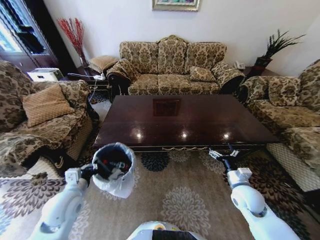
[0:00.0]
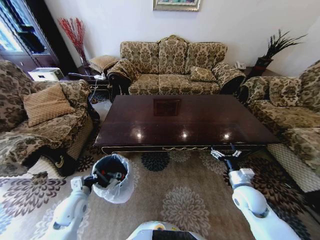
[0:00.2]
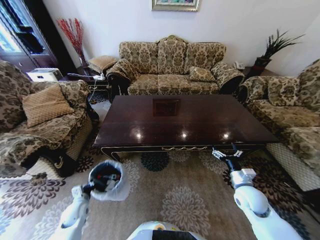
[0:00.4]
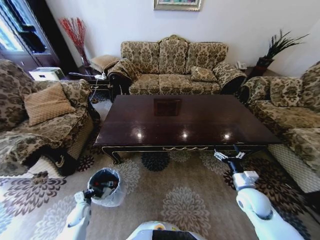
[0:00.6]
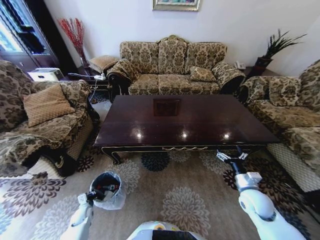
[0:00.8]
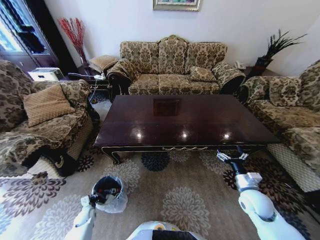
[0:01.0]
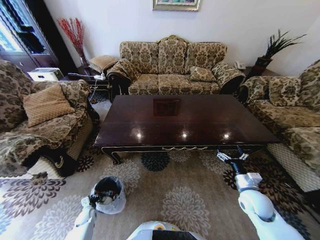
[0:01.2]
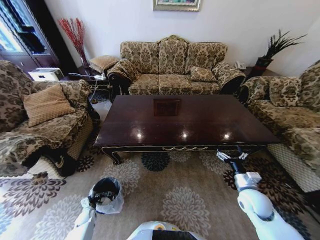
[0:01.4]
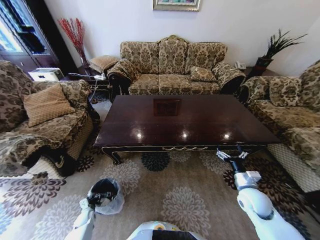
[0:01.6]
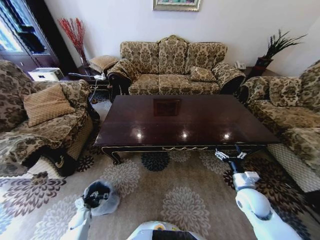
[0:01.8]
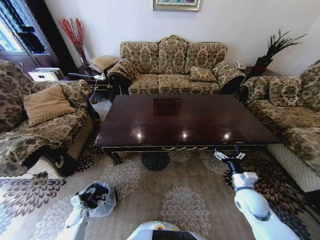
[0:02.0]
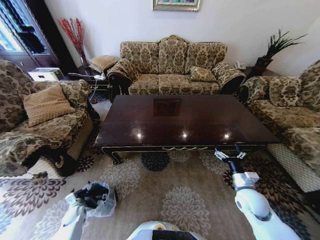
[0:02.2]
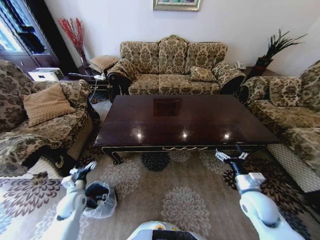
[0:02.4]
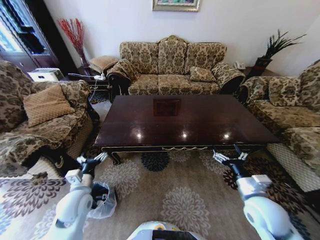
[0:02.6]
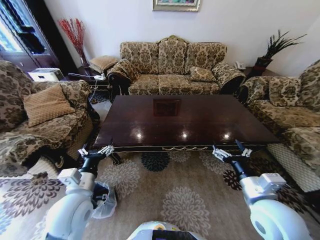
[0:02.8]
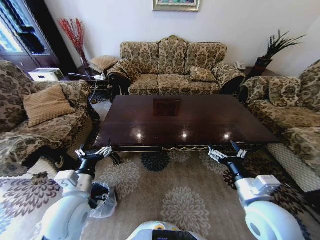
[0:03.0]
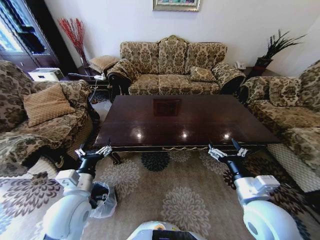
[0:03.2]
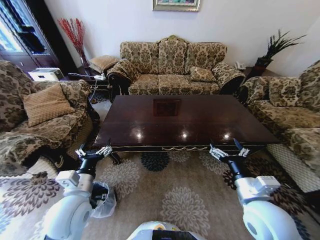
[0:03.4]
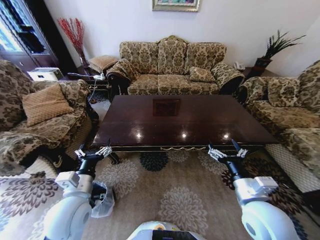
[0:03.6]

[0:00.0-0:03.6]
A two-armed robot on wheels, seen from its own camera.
Task of the whole recording: Move to the front of the table and place the trash on the table into the trash bin.
0:00.0 to 0:01.8: The left gripper shifts some 35 cm downward, and opens up.
0:01.8 to 0:03.6: The left gripper is displaced upward and to the right by about 40 cm. Meanwhile the right gripper travels upward, to the left and backward by about 20 cm.

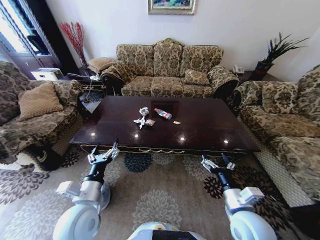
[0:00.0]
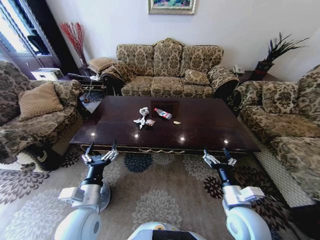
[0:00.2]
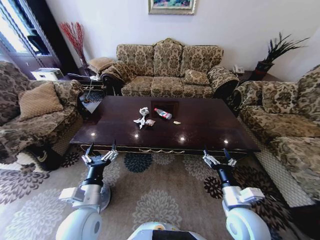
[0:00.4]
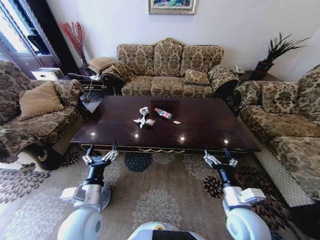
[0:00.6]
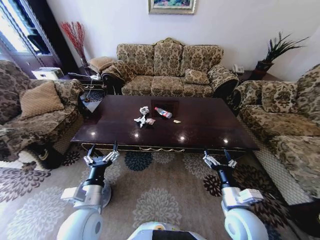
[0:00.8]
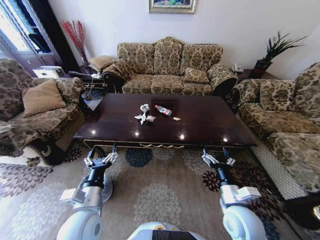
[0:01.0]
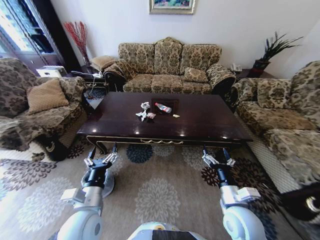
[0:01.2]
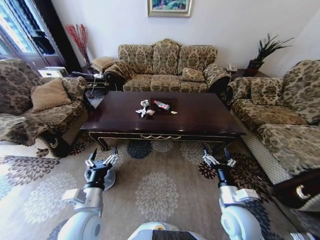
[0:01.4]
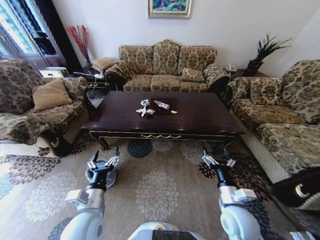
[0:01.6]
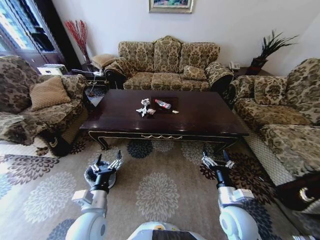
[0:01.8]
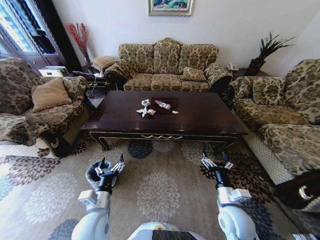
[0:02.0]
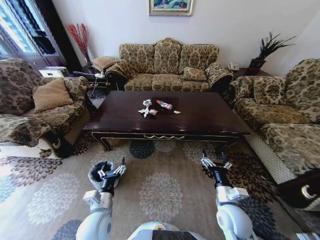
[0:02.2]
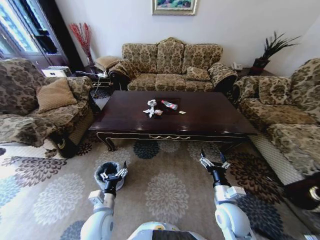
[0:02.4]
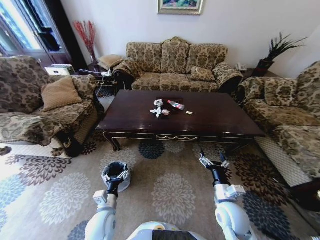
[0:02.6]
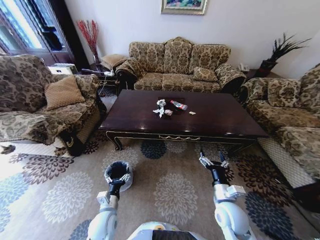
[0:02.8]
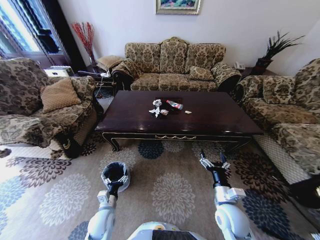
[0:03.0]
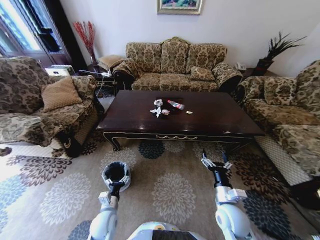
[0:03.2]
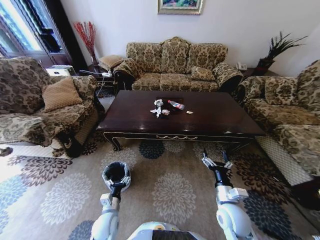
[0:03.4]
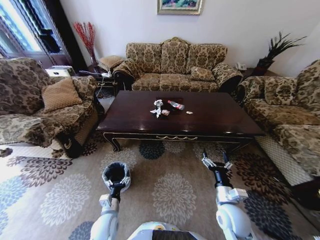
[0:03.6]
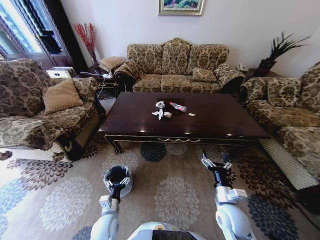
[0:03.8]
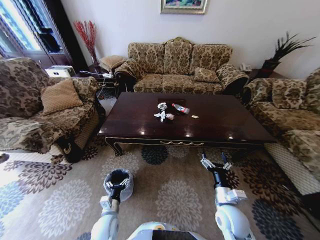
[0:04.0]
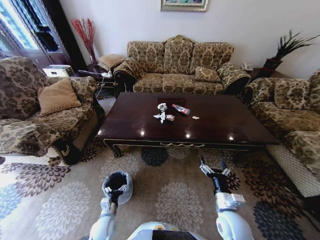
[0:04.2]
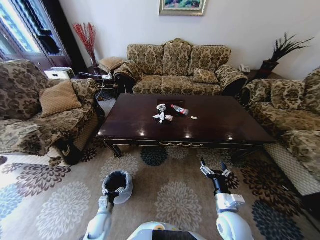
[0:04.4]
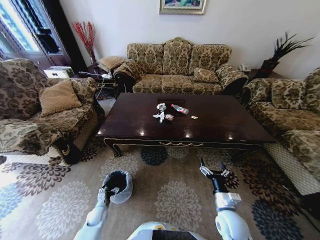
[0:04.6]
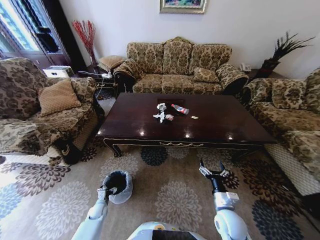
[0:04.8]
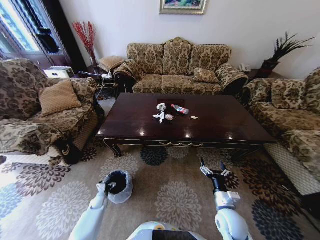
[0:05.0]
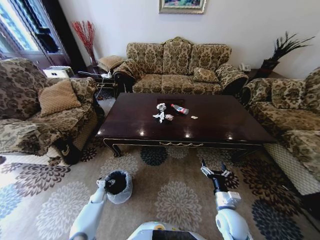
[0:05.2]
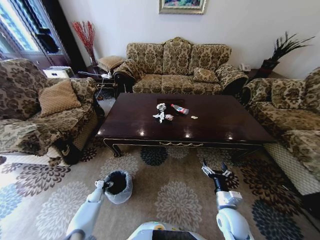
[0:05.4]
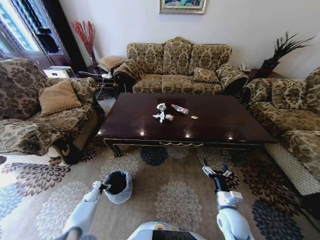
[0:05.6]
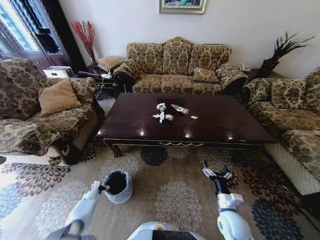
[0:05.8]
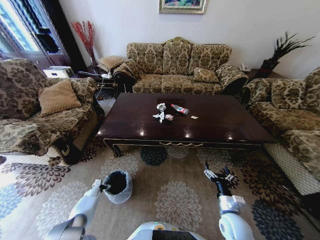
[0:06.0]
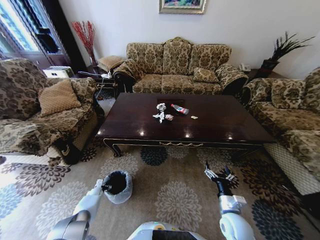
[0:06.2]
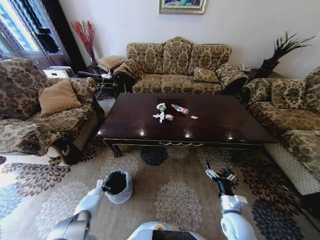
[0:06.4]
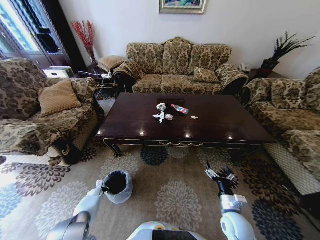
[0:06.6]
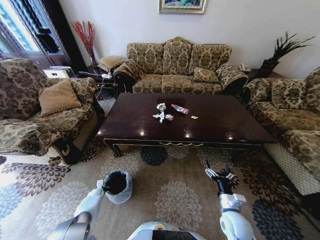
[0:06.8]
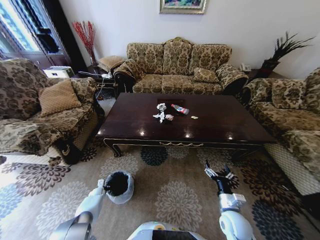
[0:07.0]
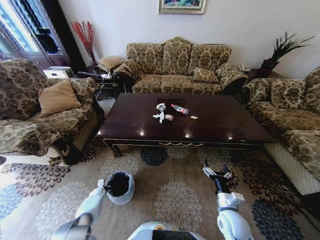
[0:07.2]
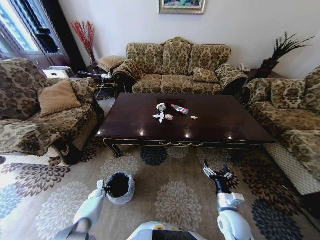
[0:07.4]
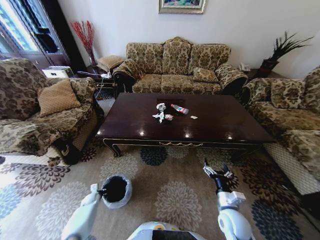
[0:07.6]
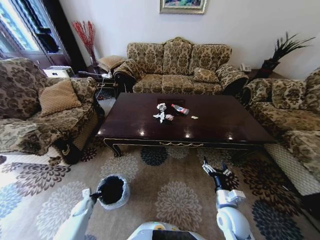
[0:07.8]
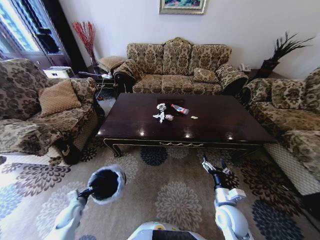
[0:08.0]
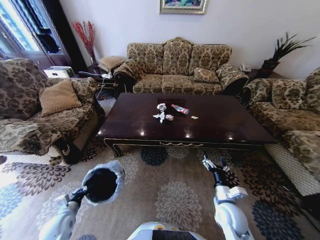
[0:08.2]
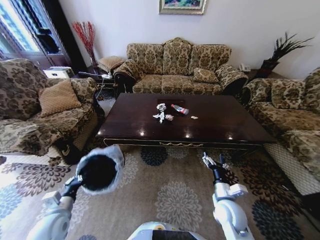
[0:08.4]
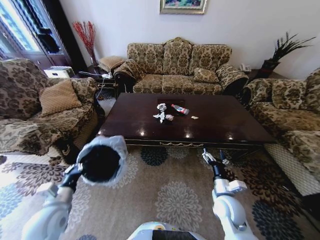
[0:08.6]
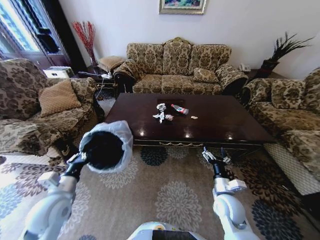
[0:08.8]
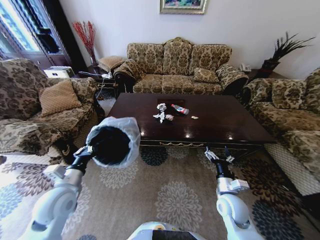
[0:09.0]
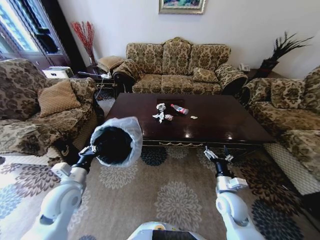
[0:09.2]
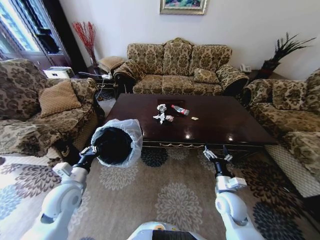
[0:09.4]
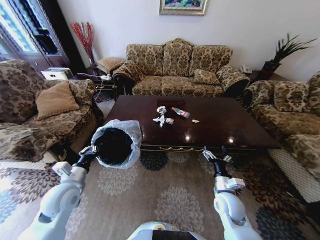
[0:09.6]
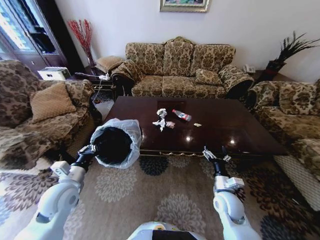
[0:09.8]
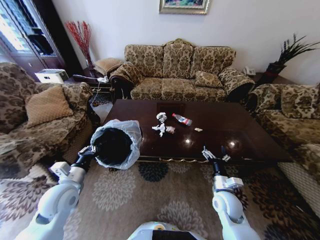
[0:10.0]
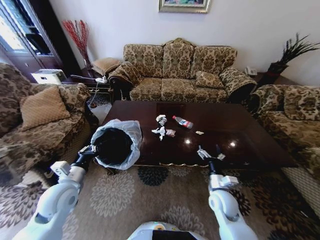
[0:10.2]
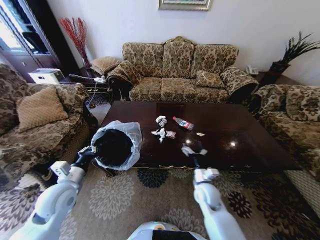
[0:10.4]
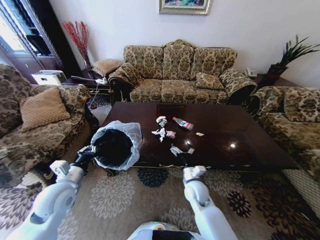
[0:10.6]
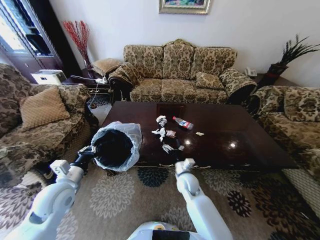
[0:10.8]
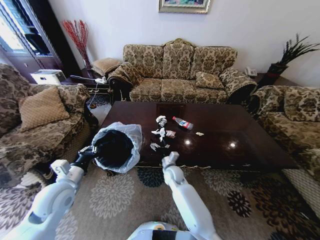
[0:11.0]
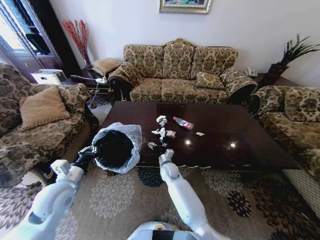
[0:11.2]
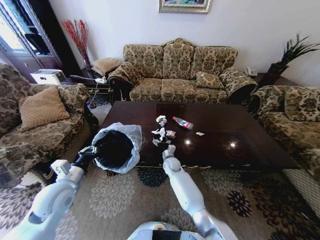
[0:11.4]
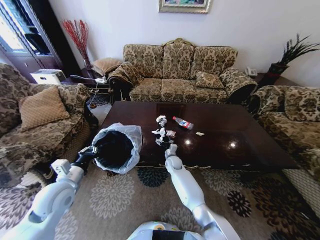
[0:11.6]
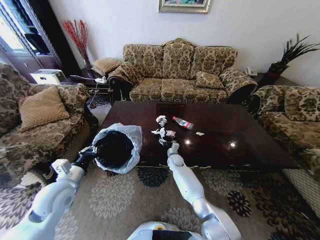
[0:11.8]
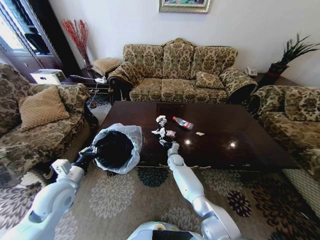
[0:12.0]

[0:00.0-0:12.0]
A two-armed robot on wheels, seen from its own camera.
Task of the whole recording: Move to the front of the table and place the trash on the table into the trash bin.
0:01.6 to 0:03.0: The left gripper heads downward, covering some 15 cm.
0:03.0 to 0:04.4: The left gripper moves downward and to the left, roughly 10 cm.
0:04.4 to 0:06.0: The left gripper shifts some 25 cm to the left, forward and downward.
0:06.0 to 0:07.6: The left gripper closes.
0:07.6 to 0:09.0: The right gripper ends up about 5 cm from where it was; the left gripper is displaced upward by about 40 cm.
0:09.0 to 0:10.4: The right gripper heads to the left, covering some 5 cm.
0:10.4 to 0:12.0: The right gripper is displaced forward, to the left and downward by approximately 25 cm.

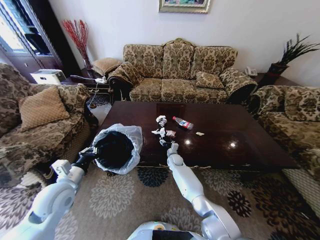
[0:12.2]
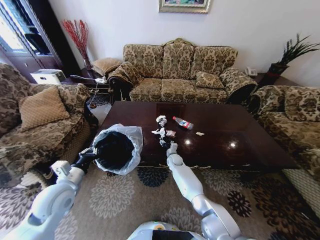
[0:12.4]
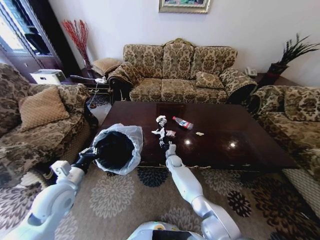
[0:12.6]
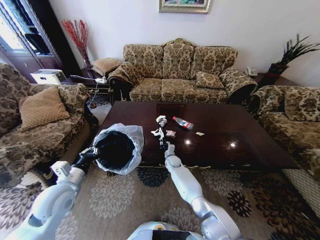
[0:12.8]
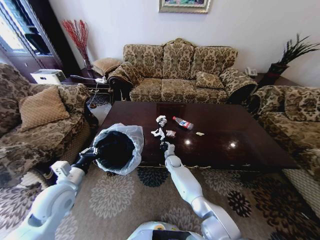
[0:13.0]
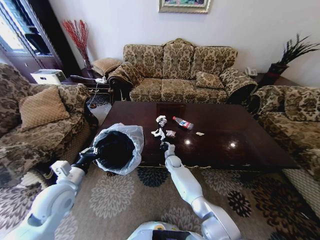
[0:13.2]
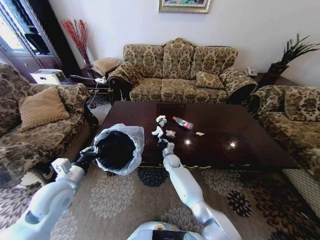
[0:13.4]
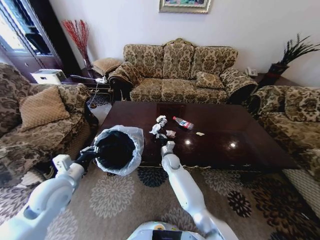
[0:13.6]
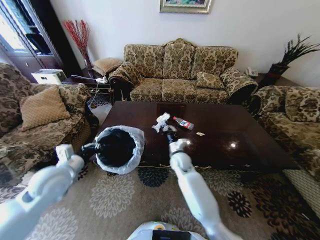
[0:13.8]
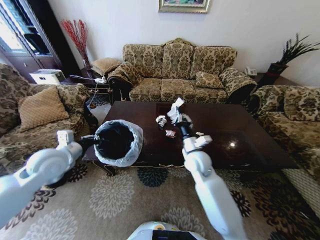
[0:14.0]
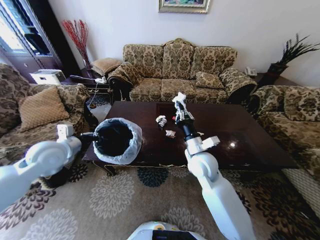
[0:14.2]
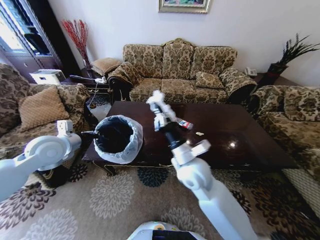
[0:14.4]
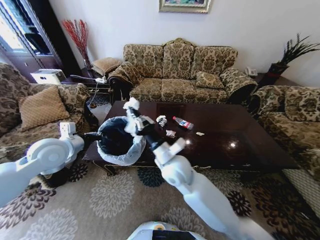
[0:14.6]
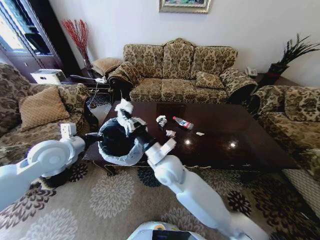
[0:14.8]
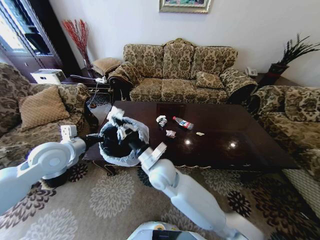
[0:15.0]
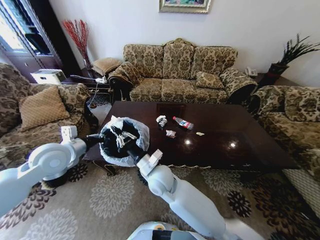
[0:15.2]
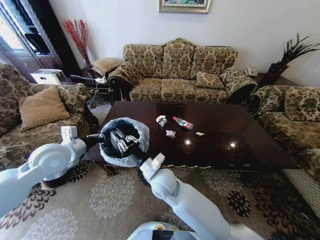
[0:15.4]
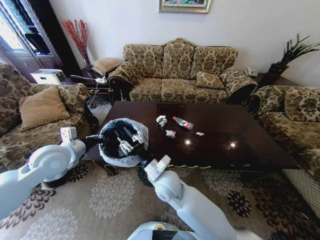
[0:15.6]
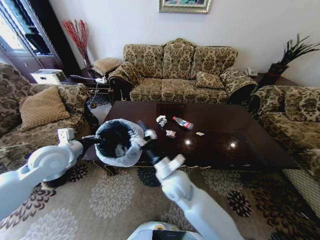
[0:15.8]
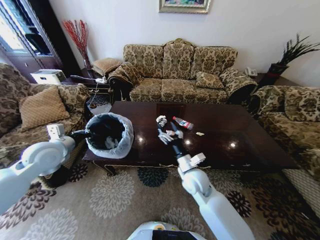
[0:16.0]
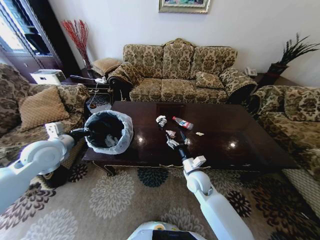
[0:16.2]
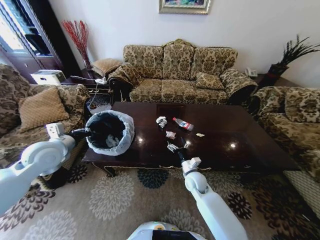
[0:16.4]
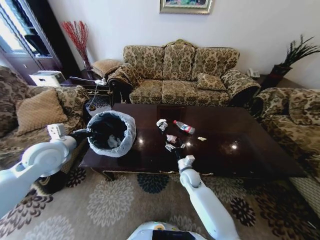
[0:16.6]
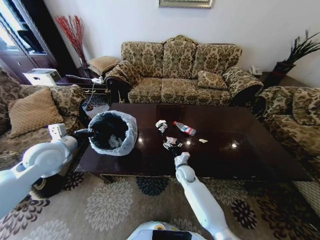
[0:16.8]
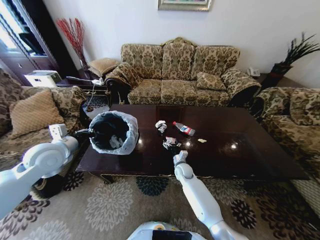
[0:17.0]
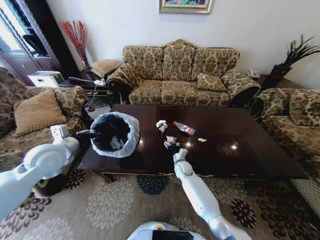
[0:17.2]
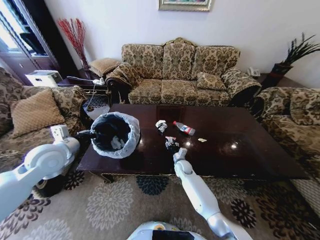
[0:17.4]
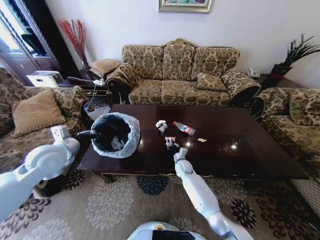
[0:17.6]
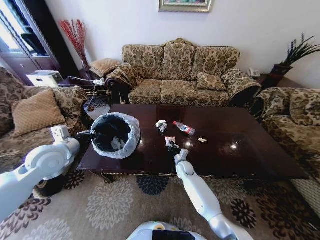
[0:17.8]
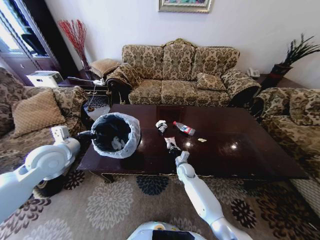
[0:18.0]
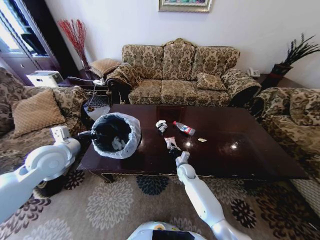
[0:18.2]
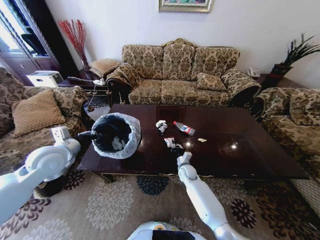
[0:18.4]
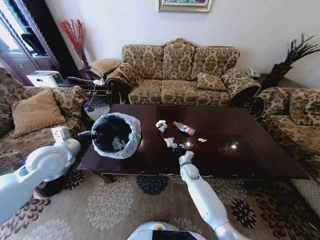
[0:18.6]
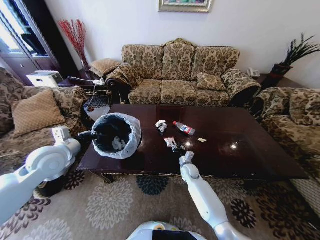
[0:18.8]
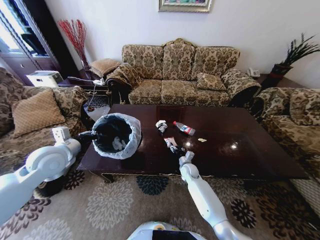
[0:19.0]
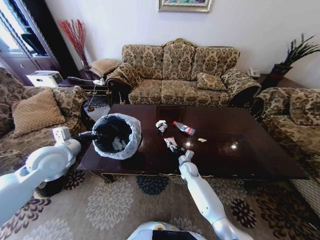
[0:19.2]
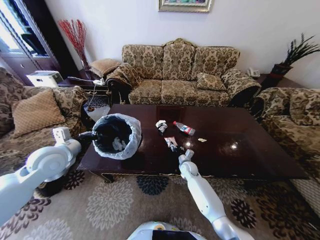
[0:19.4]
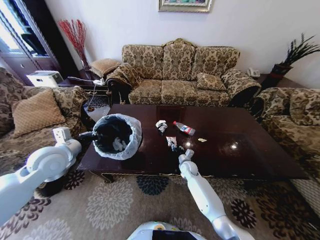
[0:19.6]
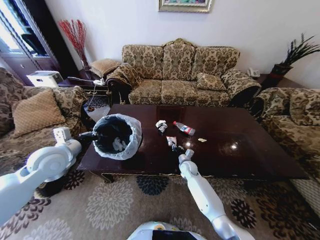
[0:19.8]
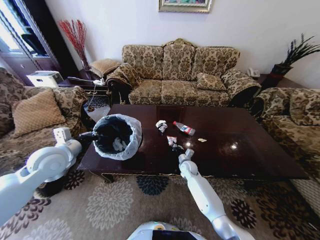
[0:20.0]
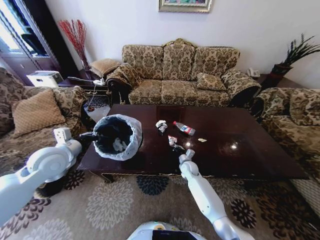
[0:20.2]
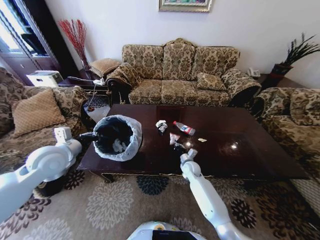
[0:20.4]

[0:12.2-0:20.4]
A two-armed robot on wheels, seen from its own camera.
Task of the whole recording: Move to the front of the table and place the trash on the table into the trash bin.
0:12.2 to 0:13.8: The left gripper shifts roughly 5 cm upward. The right gripper is displaced upward and backward by about 15 cm, and closes its fingers.
0:13.8 to 0:15.4: The right gripper shifts roughly 15 cm backward, to the left and upward. The left gripper heads upward, covering roughly 5 cm.
0:15.4 to 0:17.2: The right gripper goes some 25 cm downward, forward and to the right, and opens.
0:17.2 to 0:18.8: The right gripper closes and opens again.
0:18.8 to 0:20.4: The right gripper closes.
